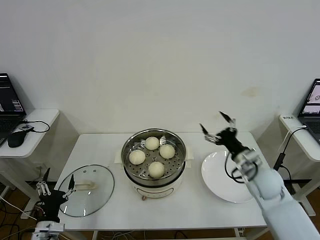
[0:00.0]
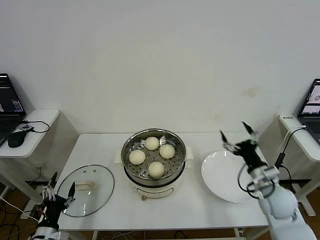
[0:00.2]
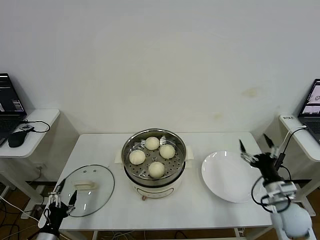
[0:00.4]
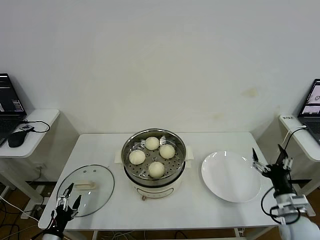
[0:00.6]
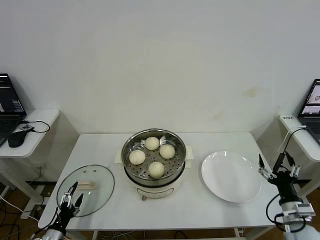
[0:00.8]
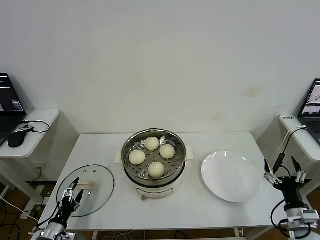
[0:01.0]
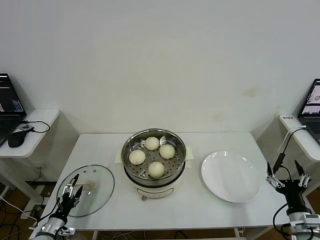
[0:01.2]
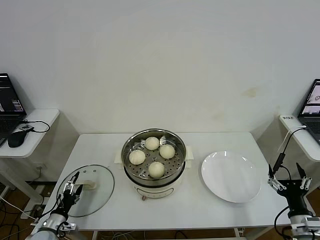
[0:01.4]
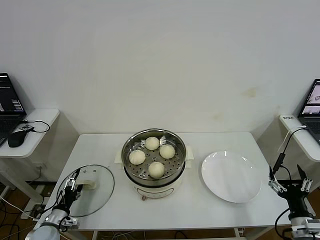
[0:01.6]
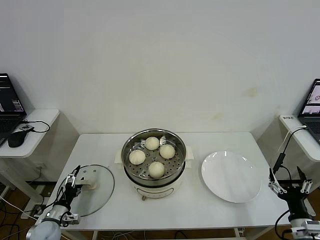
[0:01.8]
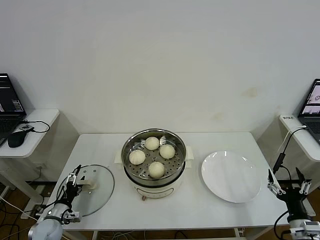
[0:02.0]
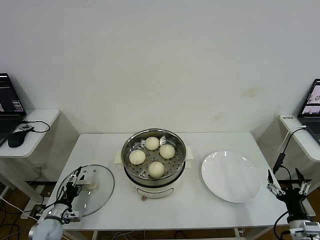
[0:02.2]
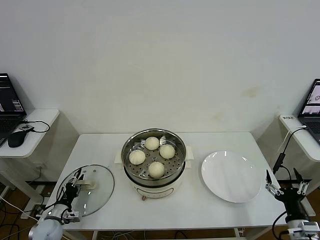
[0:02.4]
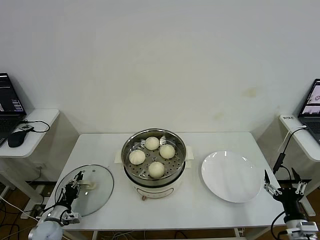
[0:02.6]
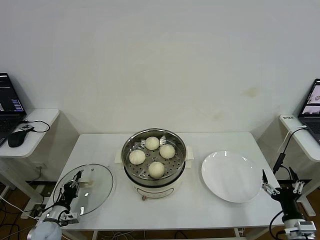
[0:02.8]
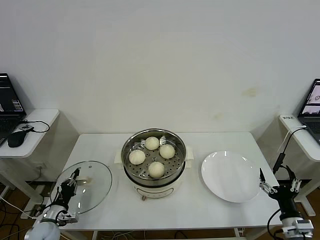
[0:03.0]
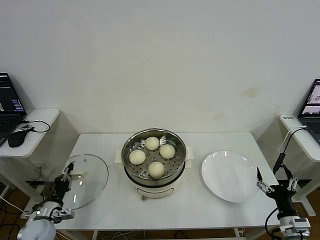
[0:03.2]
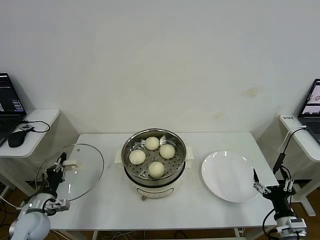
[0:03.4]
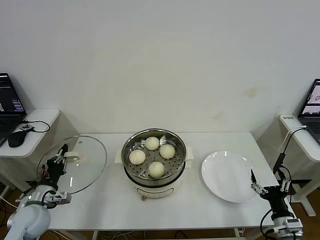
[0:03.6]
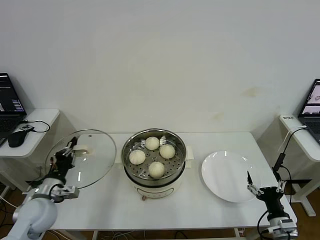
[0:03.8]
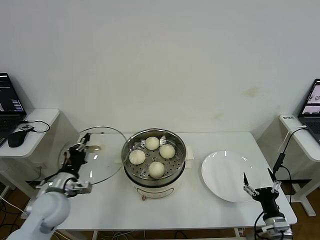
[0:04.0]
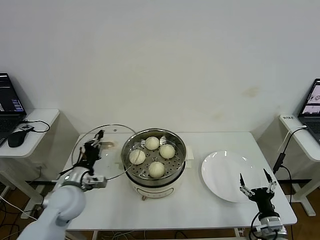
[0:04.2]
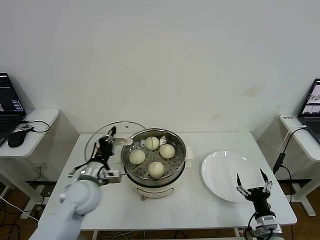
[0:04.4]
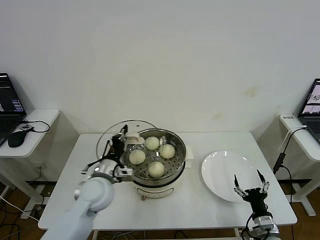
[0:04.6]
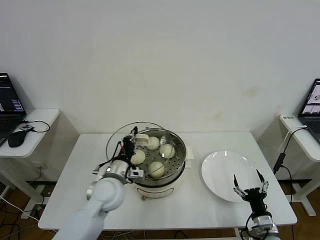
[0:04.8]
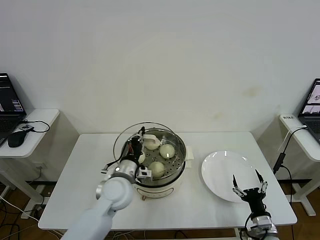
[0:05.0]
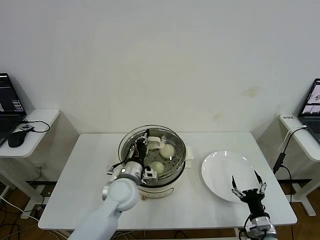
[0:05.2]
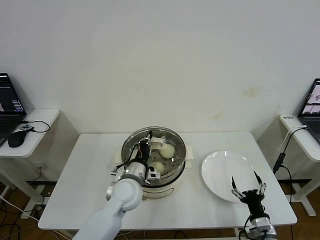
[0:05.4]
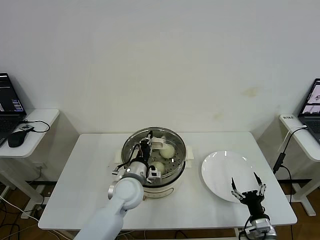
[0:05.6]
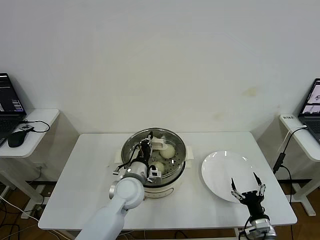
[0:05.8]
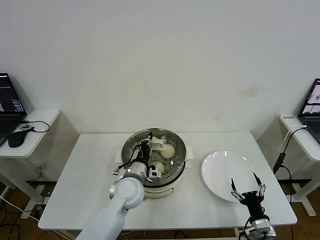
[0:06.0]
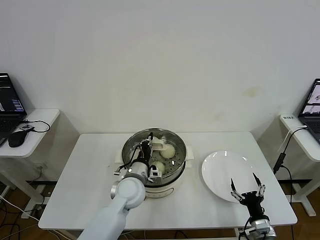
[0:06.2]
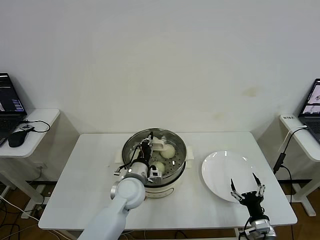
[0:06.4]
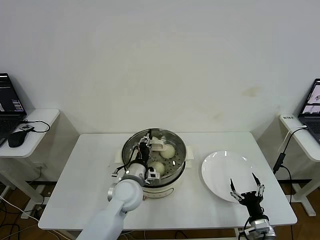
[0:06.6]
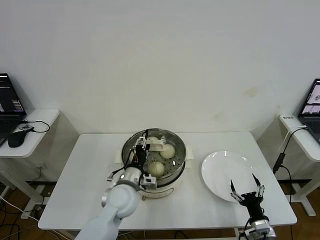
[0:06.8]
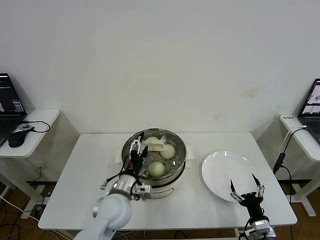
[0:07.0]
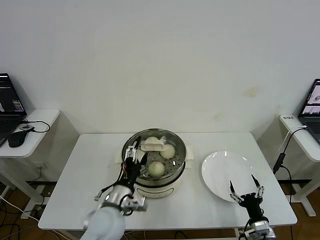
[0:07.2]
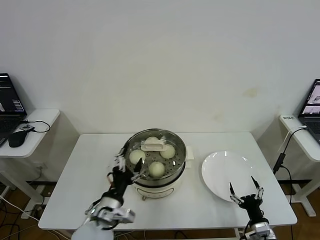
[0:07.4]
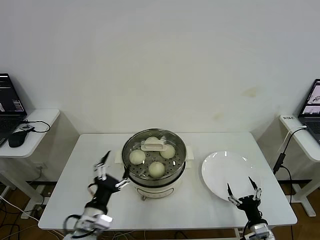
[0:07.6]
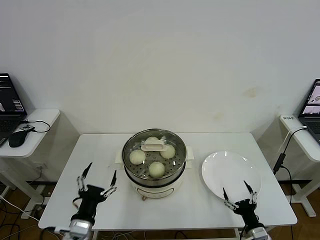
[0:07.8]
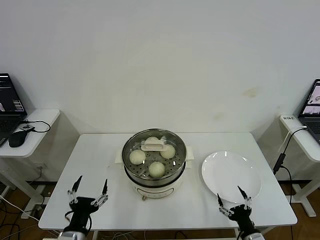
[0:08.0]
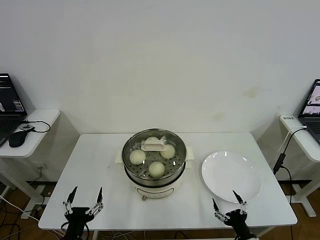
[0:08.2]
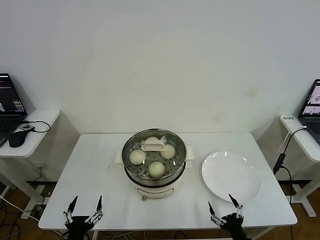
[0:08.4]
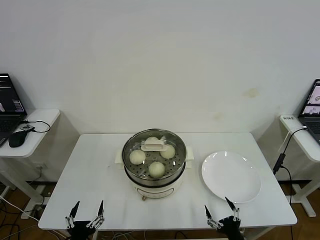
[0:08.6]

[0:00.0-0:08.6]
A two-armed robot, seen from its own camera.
Step, 0:00.0 to 0:02.8: Grasp the pot lid with left gripper.
Step, 0:03.0 to 0:06.6: Place the pot lid on the steamer with left gripper.
0:00.0 to 0:01.4: The right gripper shifts some 20 cm backward, to the right and downward, while the left gripper travels downward, to the left and forward by about 10 cm.
0:01.4 to 0:02.8: The left gripper closes up.
0:02.8 to 0:04.4: The right gripper shifts about 5 cm to the left and downward. The left gripper shifts about 30 cm upward and to the right.
0:04.4 to 0:05.8: The left gripper shifts roughly 15 cm to the right.
0:05.8 to 0:07.2: The left gripper goes some 10 cm backward, and opens.
0:07.2 to 0:08.6: The right gripper moves backward and to the left, some 10 cm. The left gripper goes some 25 cm backward, to the left and downward.

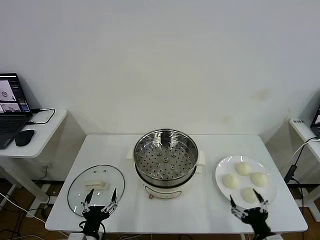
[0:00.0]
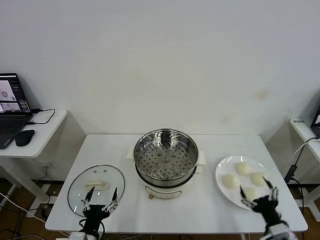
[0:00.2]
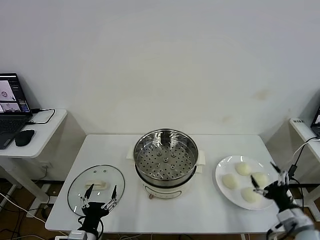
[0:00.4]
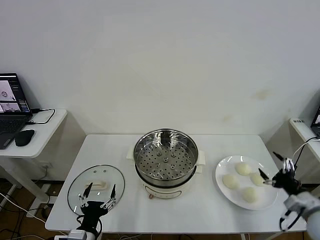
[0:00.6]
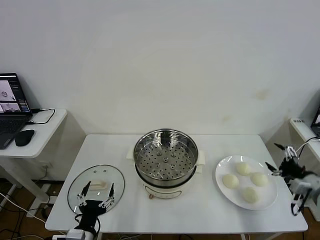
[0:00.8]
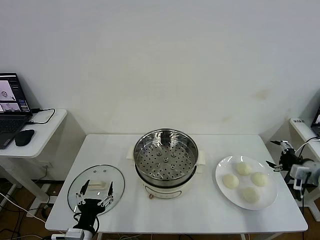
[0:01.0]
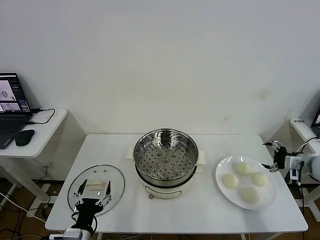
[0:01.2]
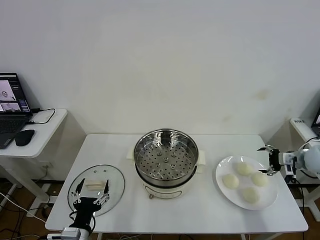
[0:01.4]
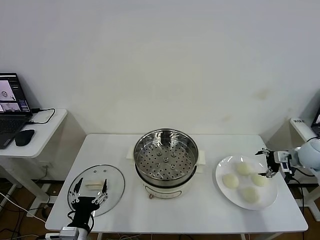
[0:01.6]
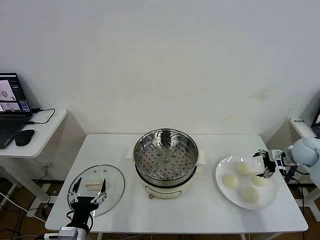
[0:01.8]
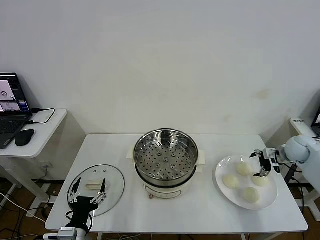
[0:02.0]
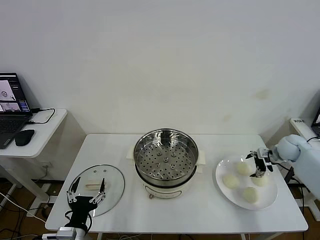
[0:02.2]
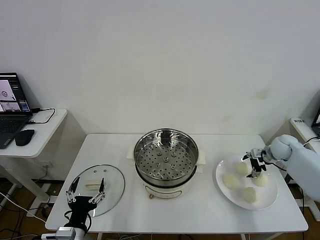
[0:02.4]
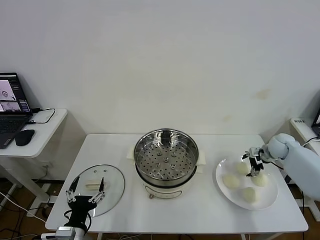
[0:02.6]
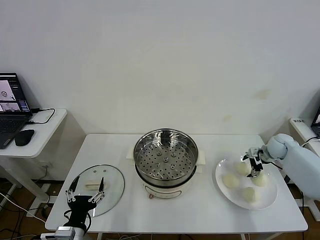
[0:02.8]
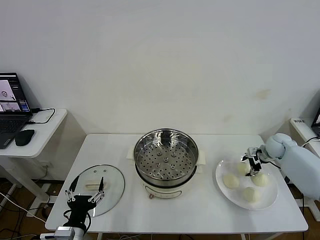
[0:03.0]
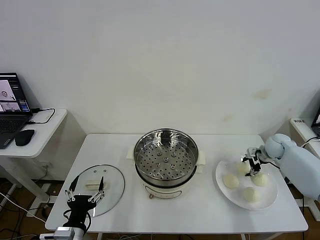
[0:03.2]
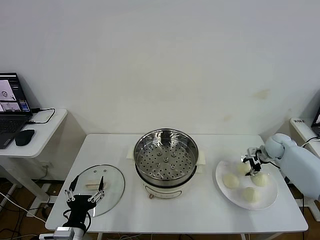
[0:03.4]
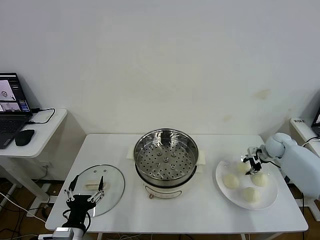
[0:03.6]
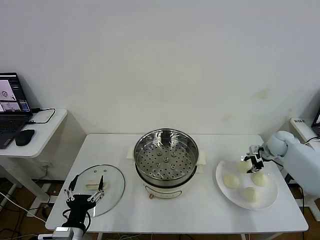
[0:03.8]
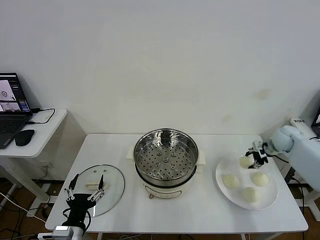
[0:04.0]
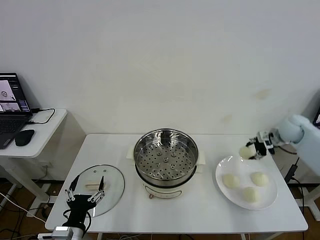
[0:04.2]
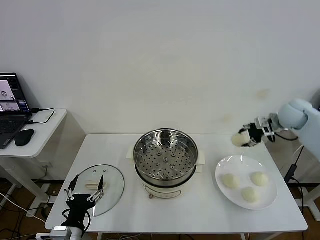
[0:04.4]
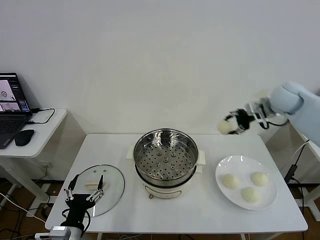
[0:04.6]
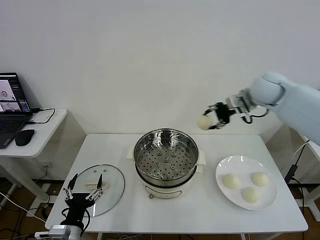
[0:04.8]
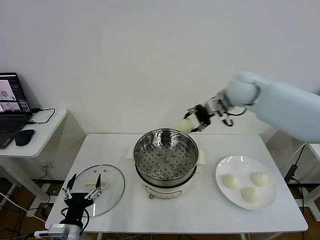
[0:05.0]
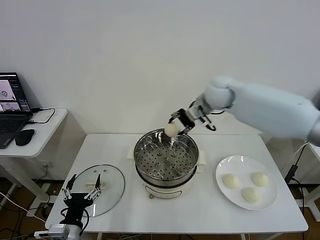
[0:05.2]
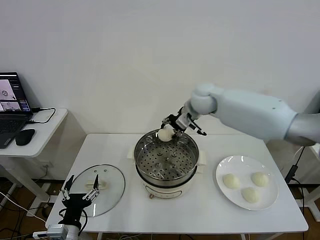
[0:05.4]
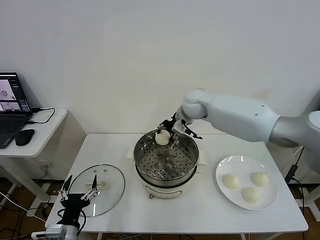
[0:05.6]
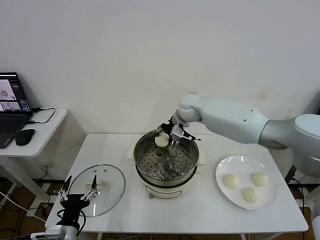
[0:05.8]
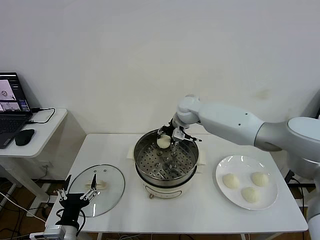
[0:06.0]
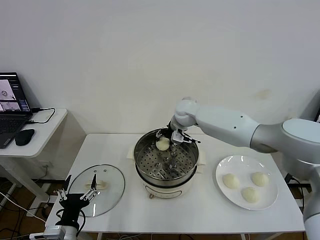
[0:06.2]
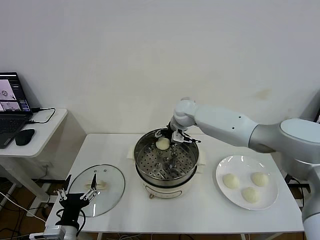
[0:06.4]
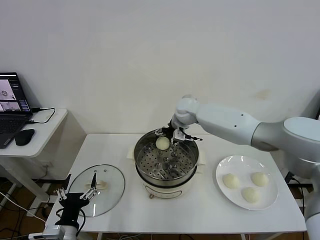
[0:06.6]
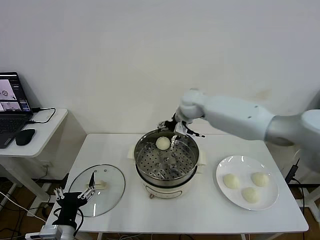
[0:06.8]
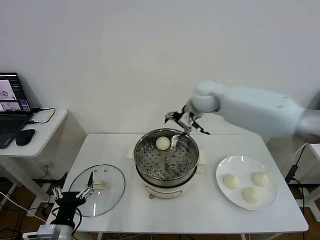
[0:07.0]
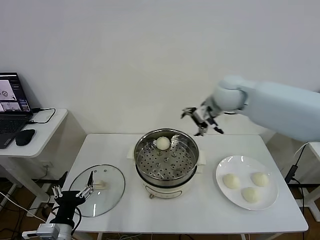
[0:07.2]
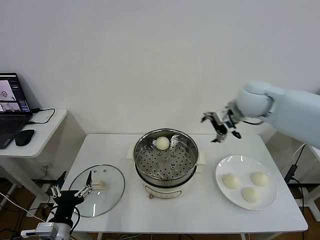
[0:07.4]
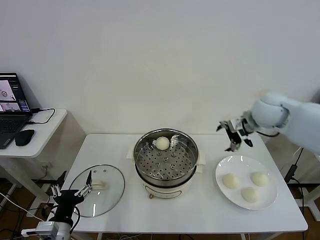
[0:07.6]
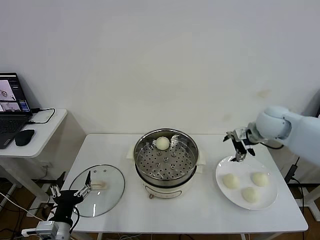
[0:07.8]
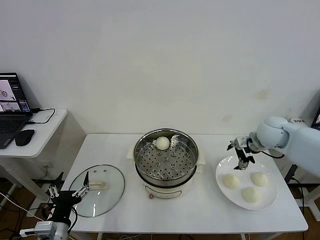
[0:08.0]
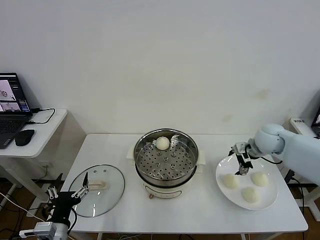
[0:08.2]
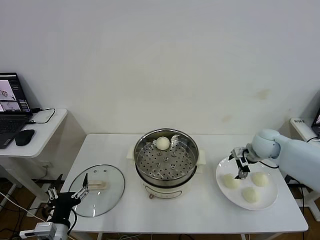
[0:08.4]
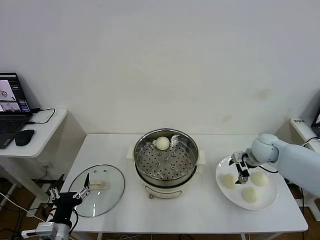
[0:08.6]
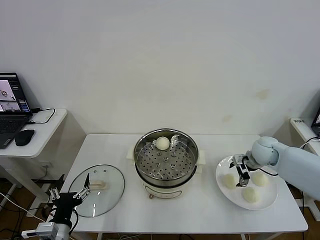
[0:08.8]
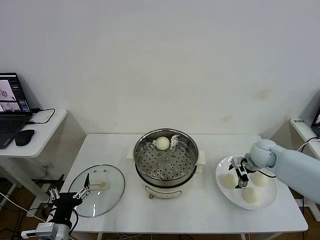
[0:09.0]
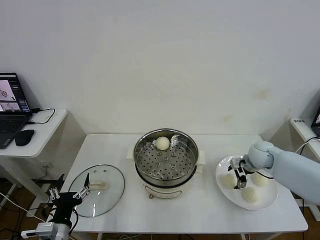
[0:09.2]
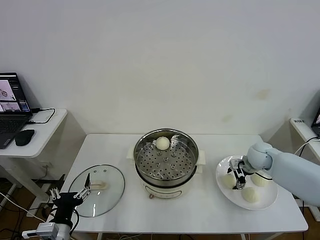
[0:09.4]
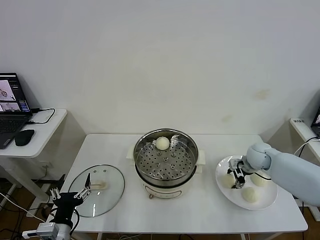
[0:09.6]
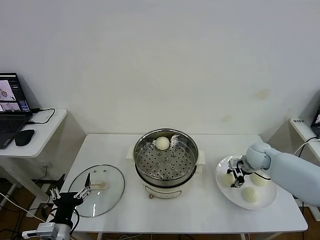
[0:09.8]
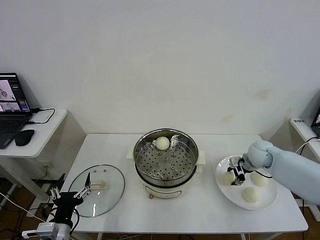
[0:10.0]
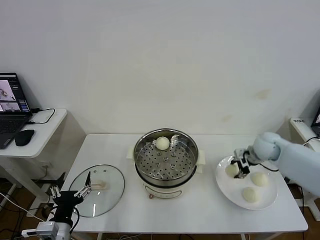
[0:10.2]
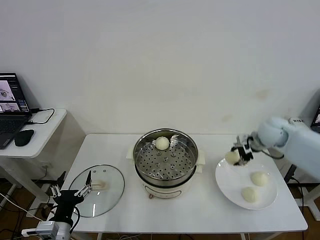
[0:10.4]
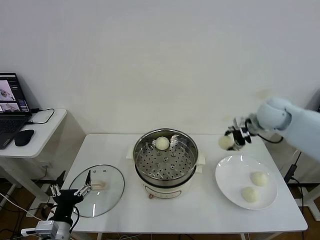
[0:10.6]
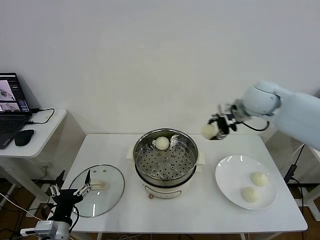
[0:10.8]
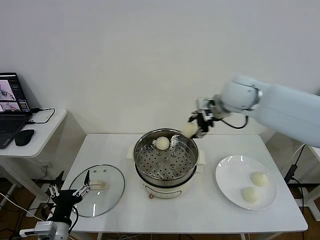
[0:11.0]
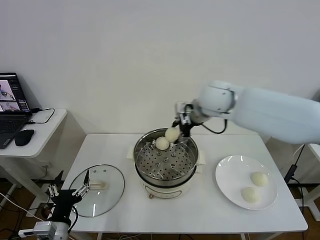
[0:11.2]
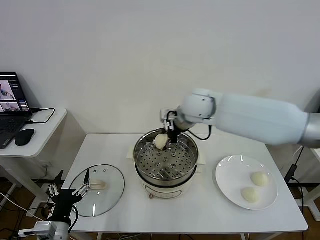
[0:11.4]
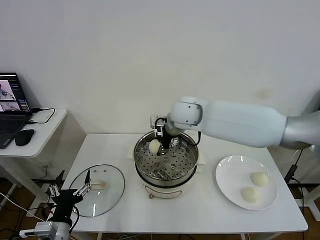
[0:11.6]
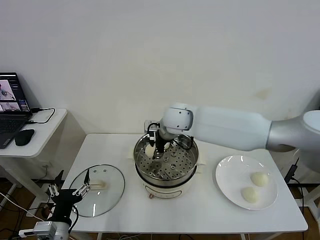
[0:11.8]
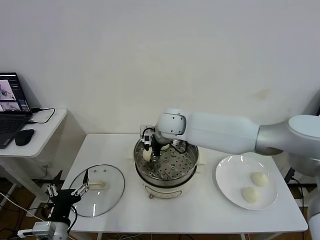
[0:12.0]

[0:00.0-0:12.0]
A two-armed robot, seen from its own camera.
Step, 0:00.0 to 0:03.6: Grasp the baozi in the plate with right gripper.
Step, 0:03.8 to 0:06.4: Place the baozi on the steamer with right gripper.
Step, 0:06.8 to 0:09.8: Grasp the baozi in the plate with right gripper.
0:01.6 to 0:03.0: The right gripper shifts about 10 cm forward and downward, and closes.
0:03.0 to 0:04.4: The right gripper travels upward by some 15 cm, and closes up.
0:04.4 to 0:06.0: The right gripper is displaced to the left by roughly 35 cm.
0:06.0 to 0:07.6: The right gripper travels to the right and backward by roughly 25 cm, and opens its fingers.
0:07.6 to 0:09.0: The right gripper goes roughly 20 cm downward.
0:09.0 to 0:10.4: The right gripper heads upward, covering some 10 cm, and closes up.
0:10.4 to 0:12.0: The right gripper goes some 35 cm to the left.

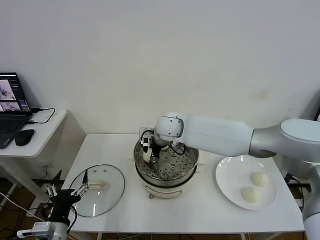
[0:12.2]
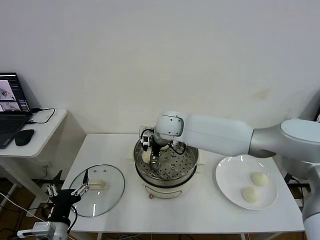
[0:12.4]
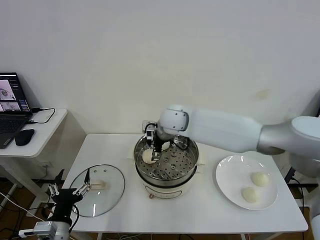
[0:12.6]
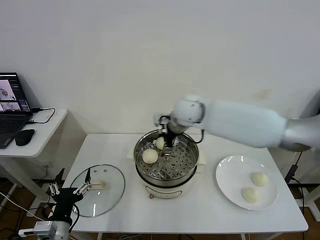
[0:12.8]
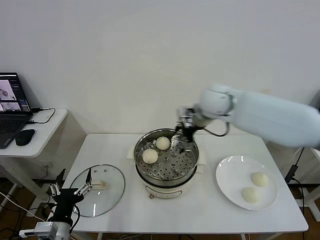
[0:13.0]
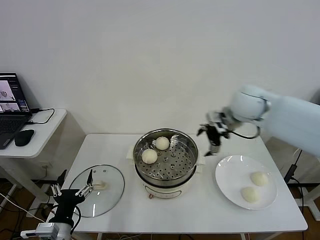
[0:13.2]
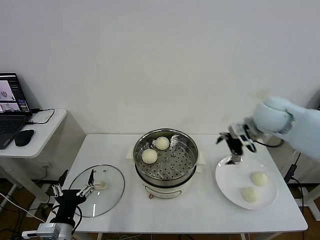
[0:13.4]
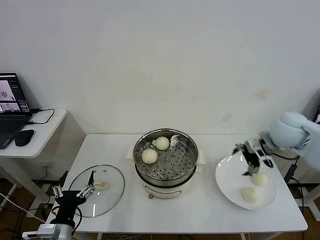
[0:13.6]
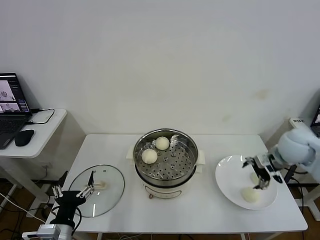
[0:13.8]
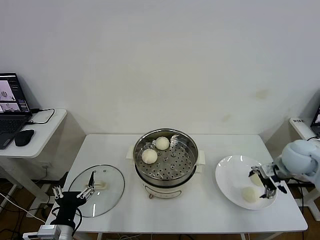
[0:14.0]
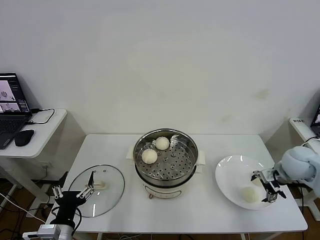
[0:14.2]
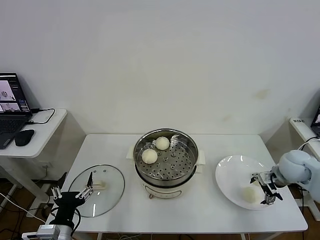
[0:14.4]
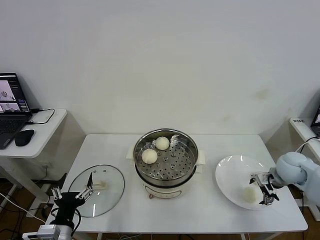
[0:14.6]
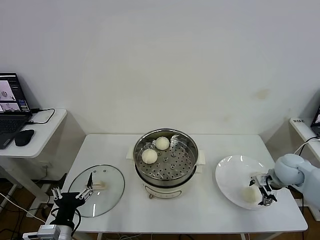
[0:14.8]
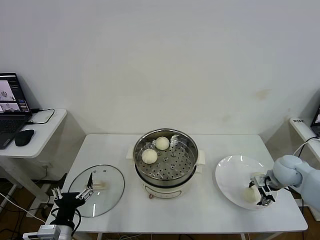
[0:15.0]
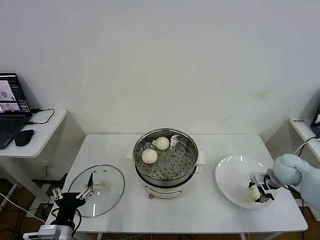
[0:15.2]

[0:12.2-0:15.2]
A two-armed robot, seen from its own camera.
Step, 0:12.6 to 0:15.2: Grasp the baozi in the plate with right gripper.
0:12.2 to 0:13.8: The right gripper moves to the right, roughly 35 cm, and opens up.
0:13.8 to 0:15.2: The right gripper goes roughly 10 cm downward, and closes up.
